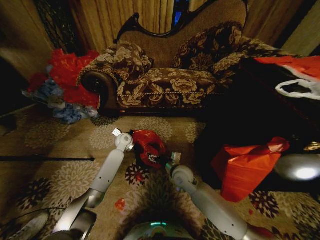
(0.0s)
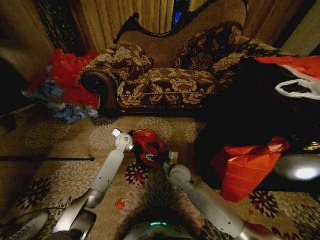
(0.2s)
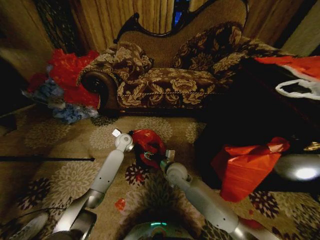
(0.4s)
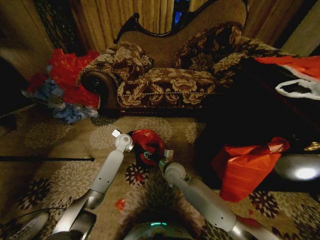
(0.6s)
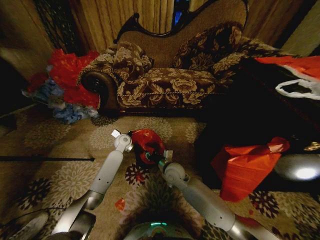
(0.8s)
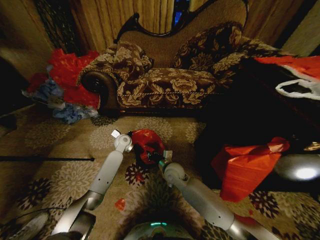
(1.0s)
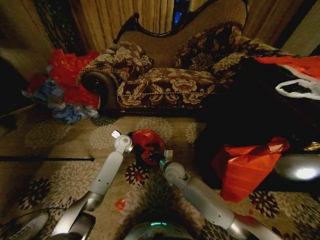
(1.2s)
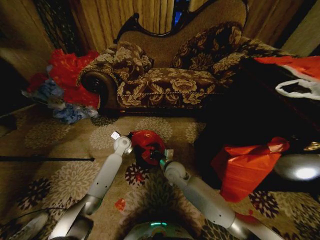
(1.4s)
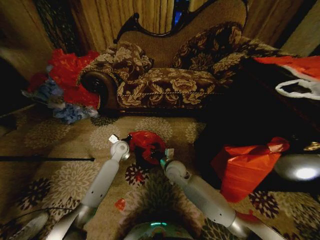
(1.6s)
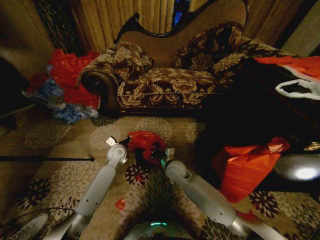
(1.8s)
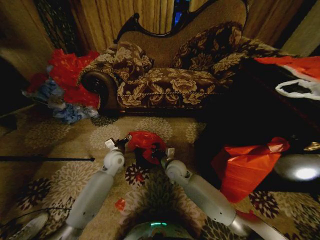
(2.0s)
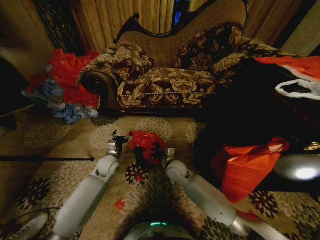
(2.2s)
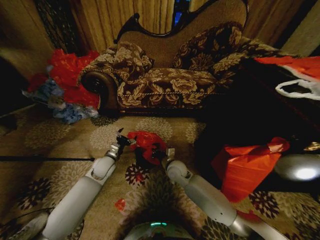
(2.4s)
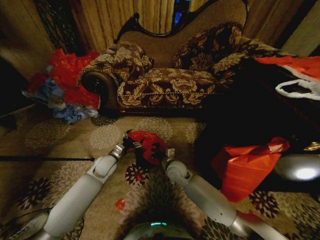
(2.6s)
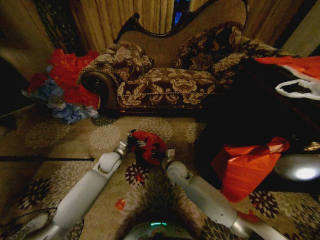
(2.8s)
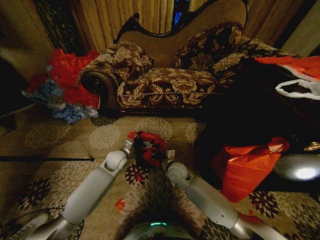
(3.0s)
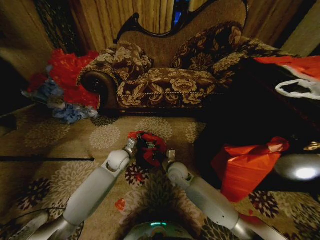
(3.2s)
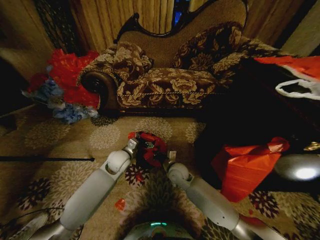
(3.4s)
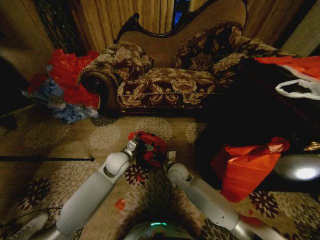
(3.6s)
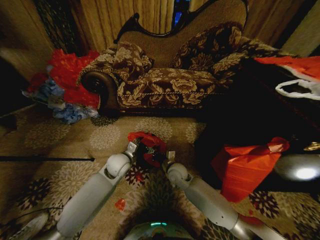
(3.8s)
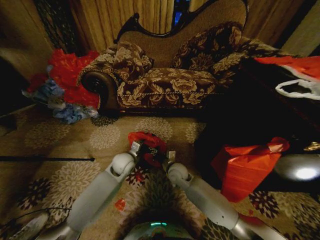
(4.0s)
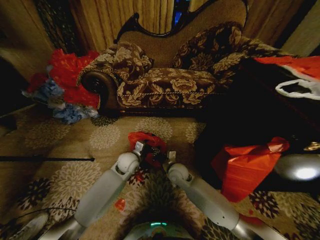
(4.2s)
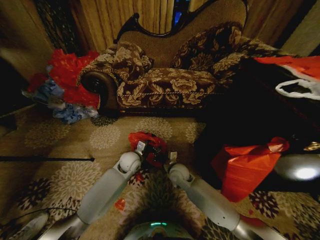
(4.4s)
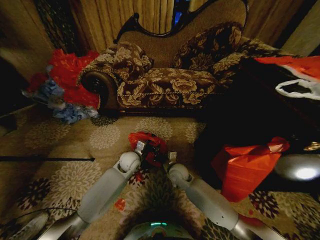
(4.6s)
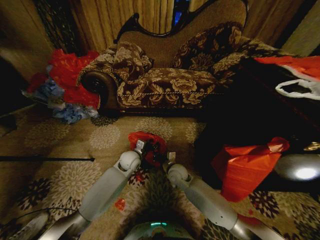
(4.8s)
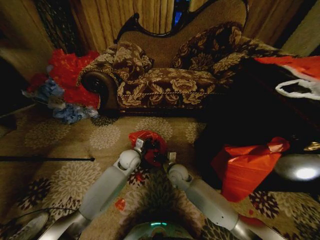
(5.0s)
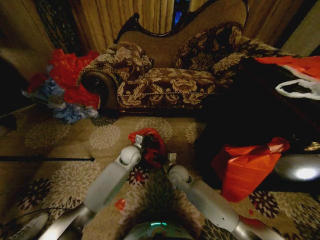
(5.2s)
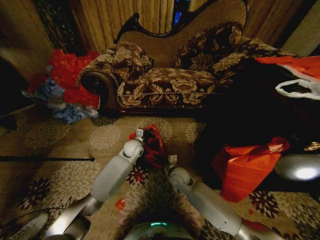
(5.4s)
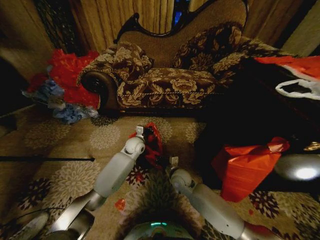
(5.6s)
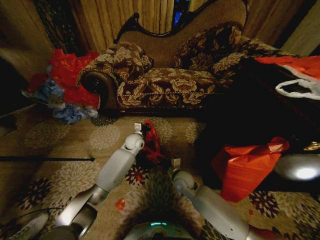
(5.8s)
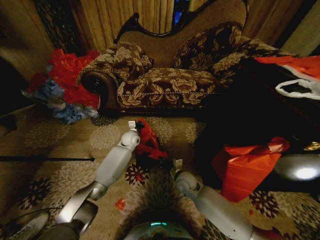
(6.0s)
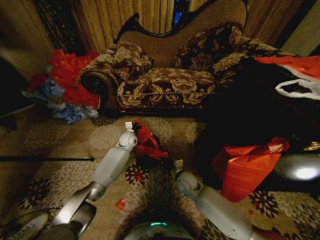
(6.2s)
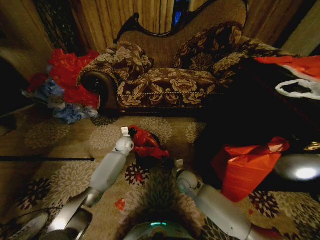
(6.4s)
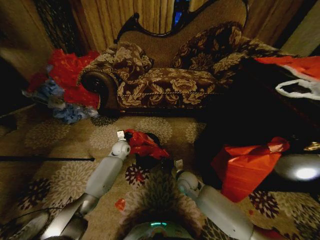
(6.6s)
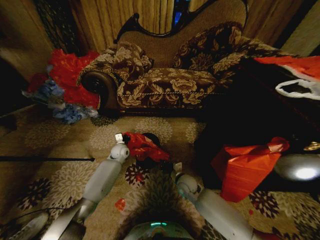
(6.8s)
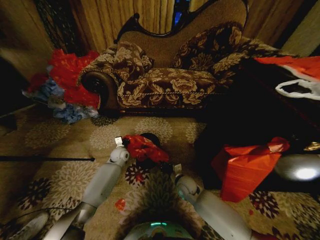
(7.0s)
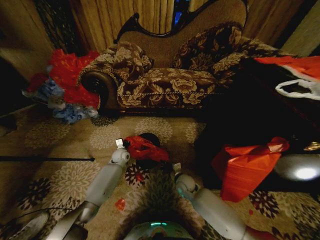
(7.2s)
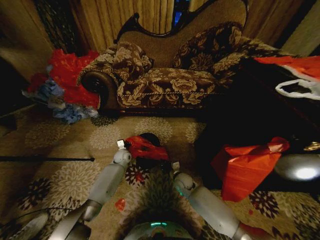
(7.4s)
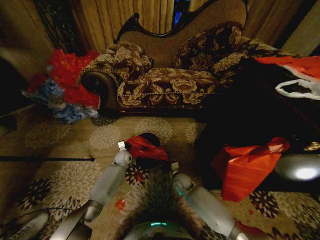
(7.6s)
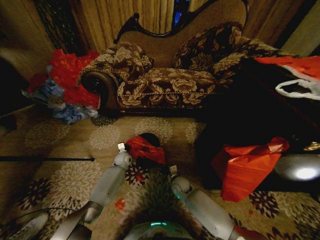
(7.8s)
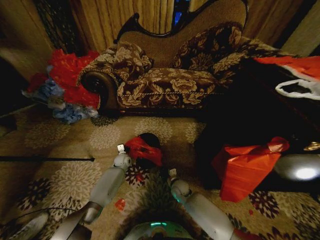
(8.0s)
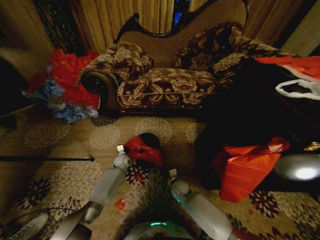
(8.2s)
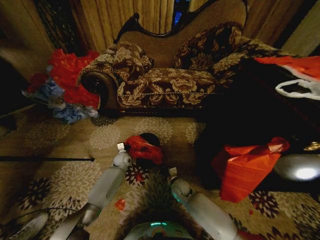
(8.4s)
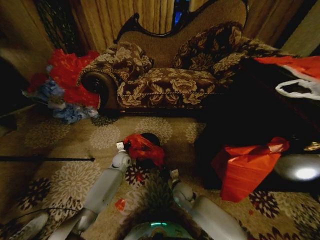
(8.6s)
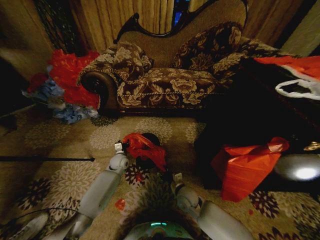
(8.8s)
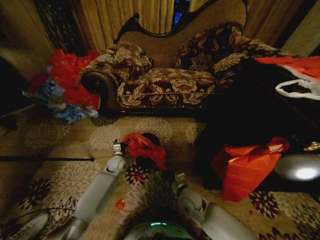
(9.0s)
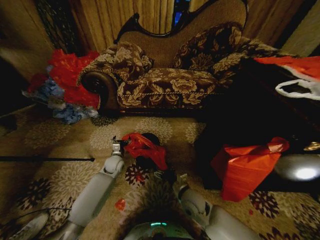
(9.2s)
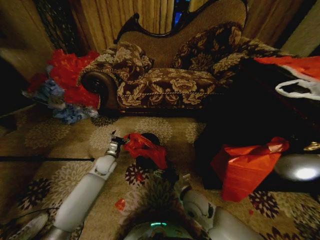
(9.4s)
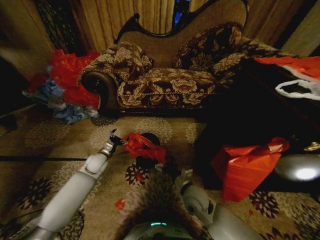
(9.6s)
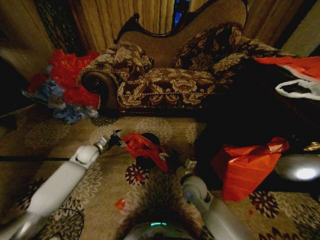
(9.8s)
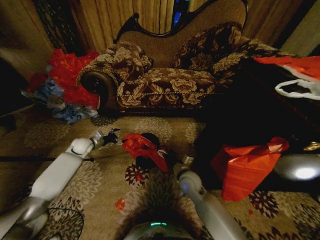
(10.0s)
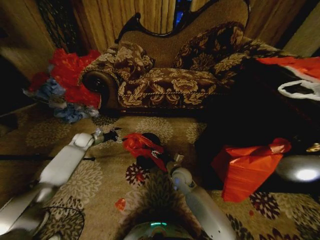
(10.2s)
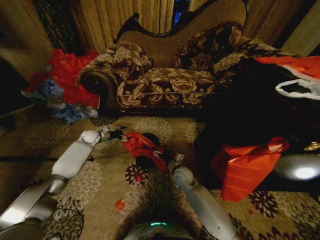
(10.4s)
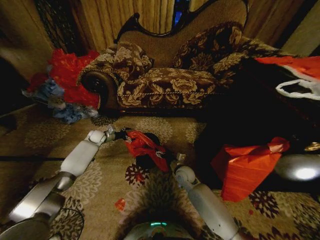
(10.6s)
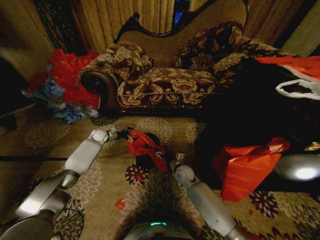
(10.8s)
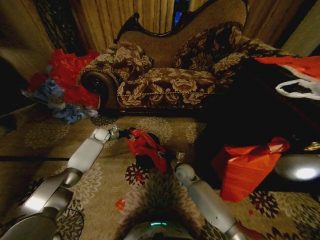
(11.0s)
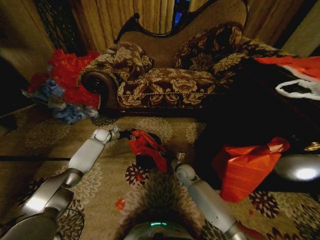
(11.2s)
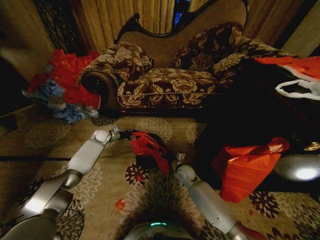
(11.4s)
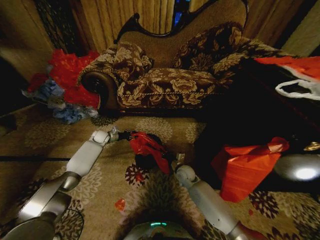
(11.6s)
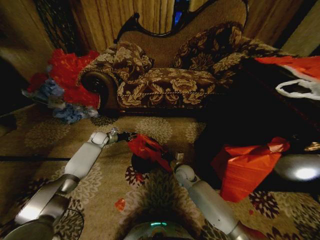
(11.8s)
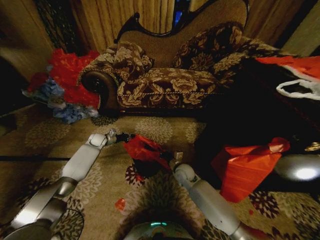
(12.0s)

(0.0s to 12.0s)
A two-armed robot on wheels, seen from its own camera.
Task of the whole recording: Place a garbage bag over the trash bin.
0.0s - 1.6s: The right gripper closes up. Meanwhile the left gripper shifts by some 5 cm, and opens.
1.6s - 3.0s: The left gripper shifts some 5 cm backward, and opens.
3.0s - 4.4s: The left gripper is displaced to the right by approximately 5 cm.
4.4s - 6.0s: The left gripper heads forward, covering approximately 15 cm, and closes its fingers.
6.0s - 7.6s: The right gripper moves downward, roughly 10 cm, while the left gripper heads downward and to the left, covering some 15 cm.
7.6s - 9.0s: The right gripper goes approximately 10 cm backward and upward, and opens its fingers, while the left gripper moves backward, roughly 5 cm, and opens up.
9.0s - 10.4s: The left gripper travels to the left, forward and upward by roughly 25 cm. The right gripper moves forward, some 10 cm.
10.4s - 12.0s: The right gripper closes up; the left gripper closes.

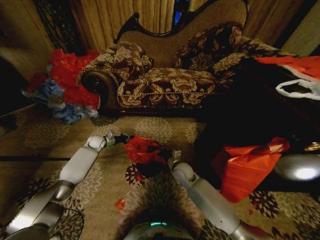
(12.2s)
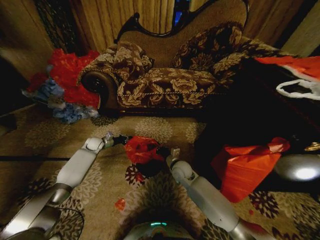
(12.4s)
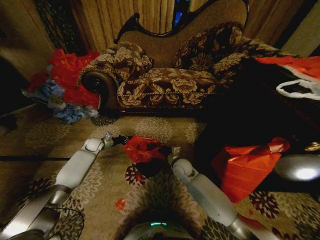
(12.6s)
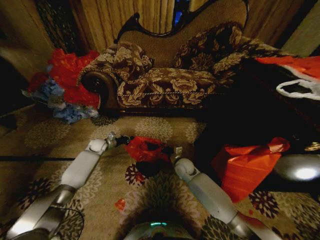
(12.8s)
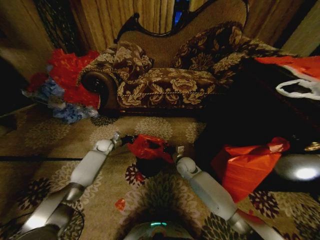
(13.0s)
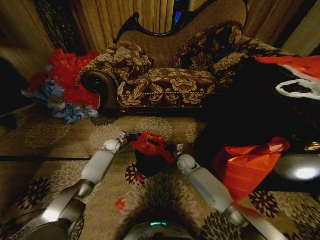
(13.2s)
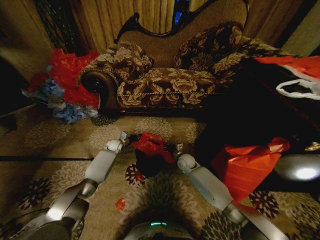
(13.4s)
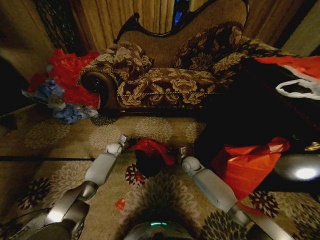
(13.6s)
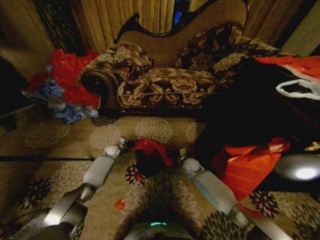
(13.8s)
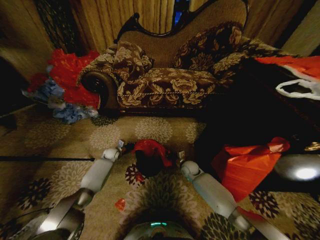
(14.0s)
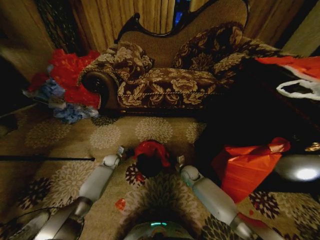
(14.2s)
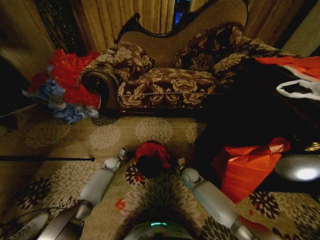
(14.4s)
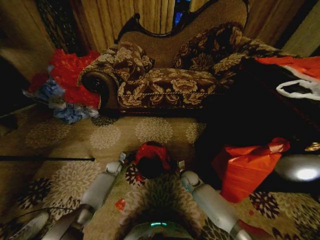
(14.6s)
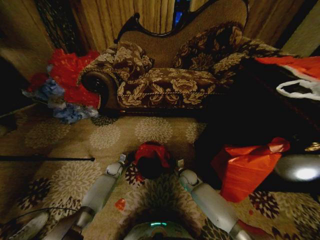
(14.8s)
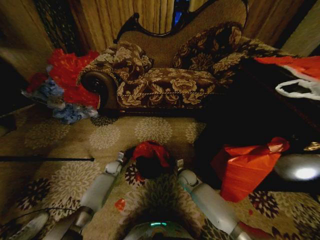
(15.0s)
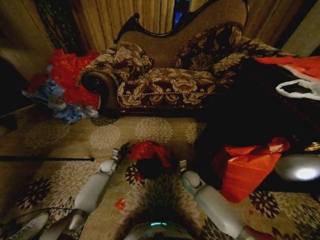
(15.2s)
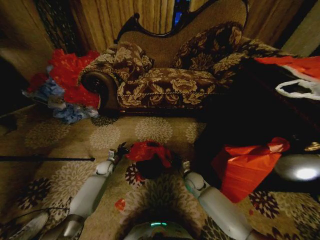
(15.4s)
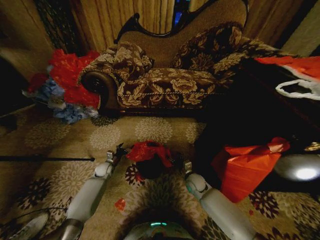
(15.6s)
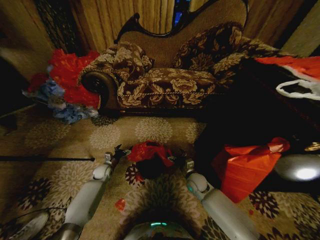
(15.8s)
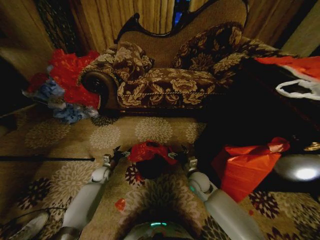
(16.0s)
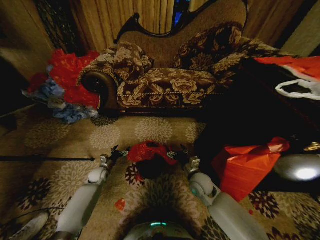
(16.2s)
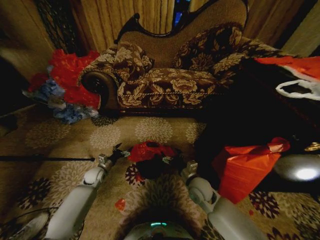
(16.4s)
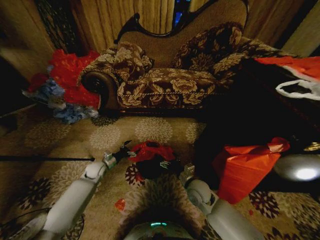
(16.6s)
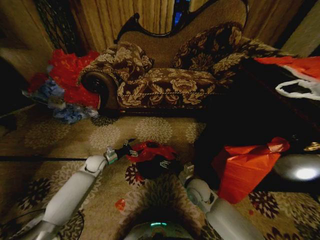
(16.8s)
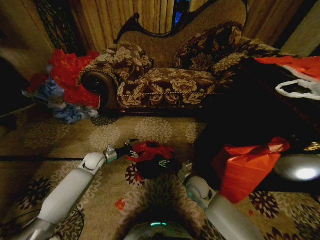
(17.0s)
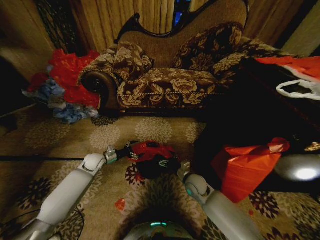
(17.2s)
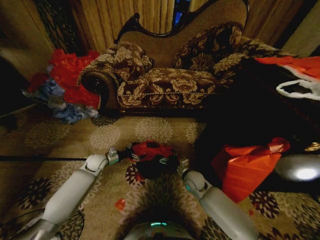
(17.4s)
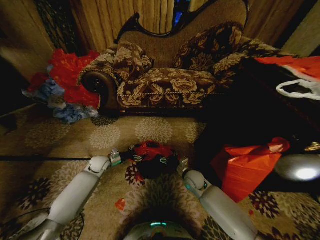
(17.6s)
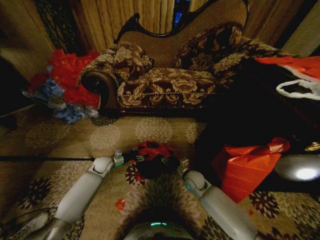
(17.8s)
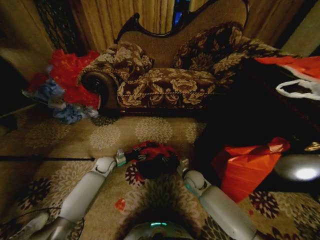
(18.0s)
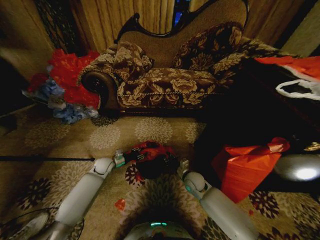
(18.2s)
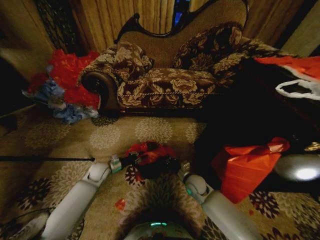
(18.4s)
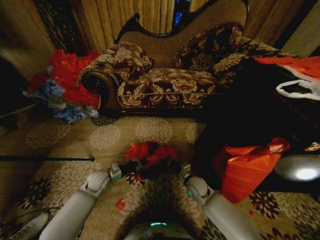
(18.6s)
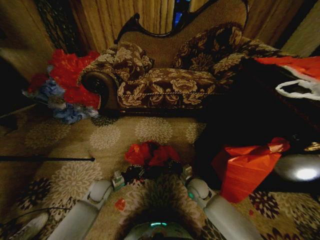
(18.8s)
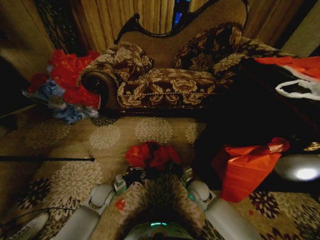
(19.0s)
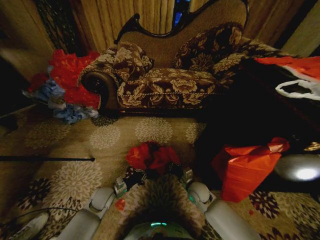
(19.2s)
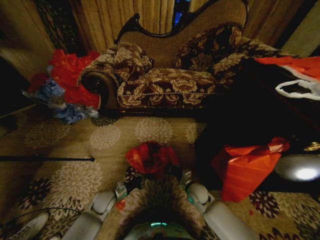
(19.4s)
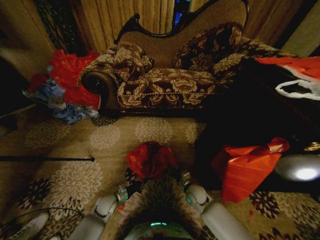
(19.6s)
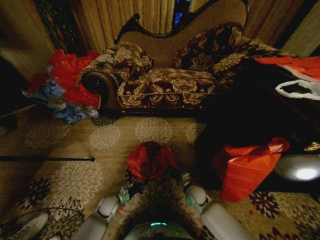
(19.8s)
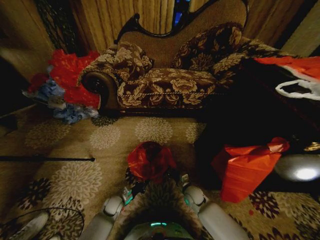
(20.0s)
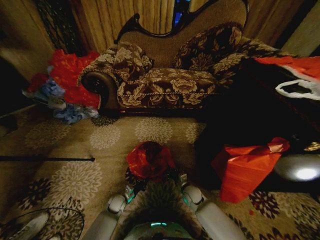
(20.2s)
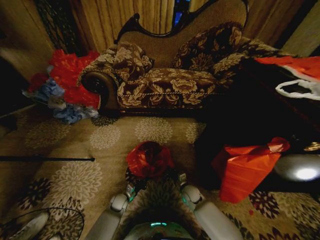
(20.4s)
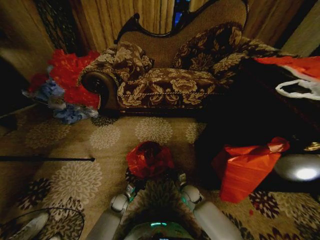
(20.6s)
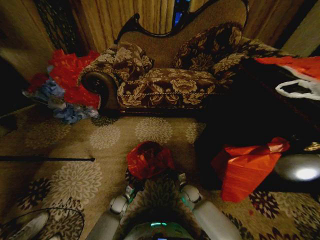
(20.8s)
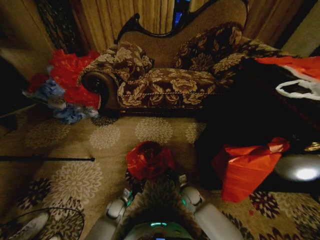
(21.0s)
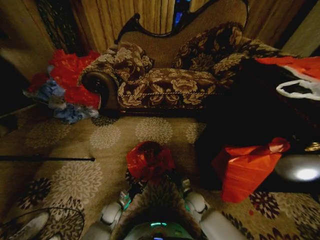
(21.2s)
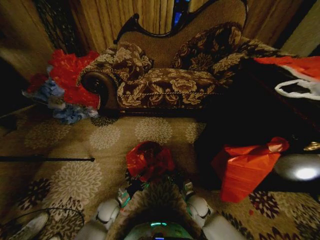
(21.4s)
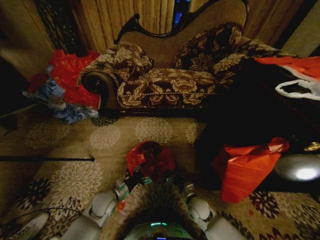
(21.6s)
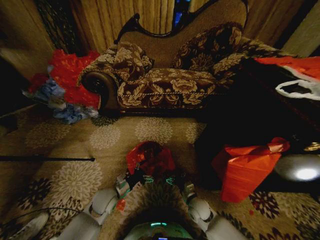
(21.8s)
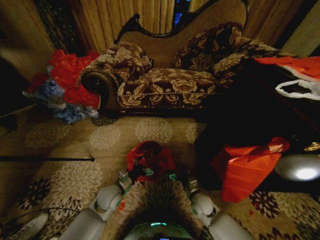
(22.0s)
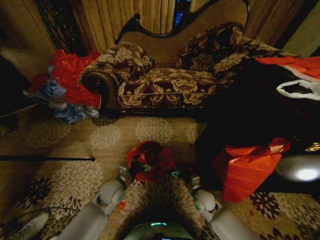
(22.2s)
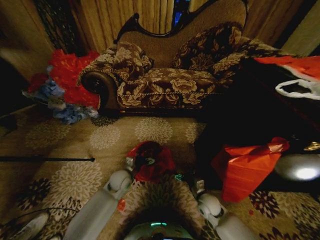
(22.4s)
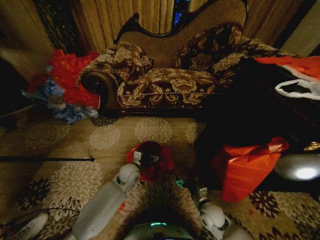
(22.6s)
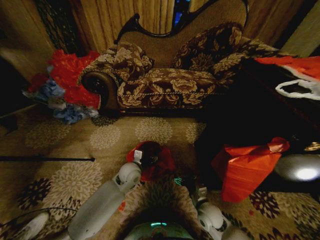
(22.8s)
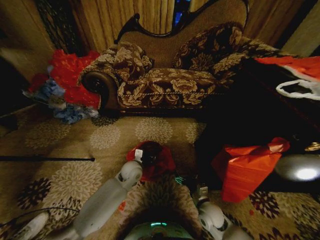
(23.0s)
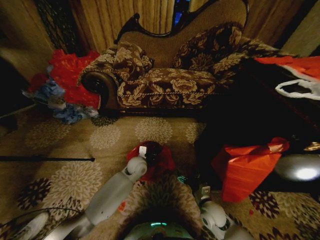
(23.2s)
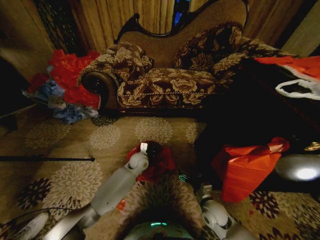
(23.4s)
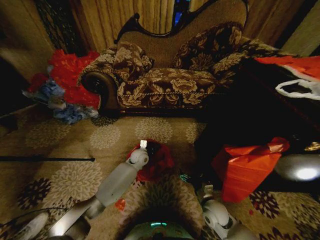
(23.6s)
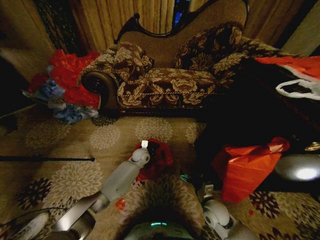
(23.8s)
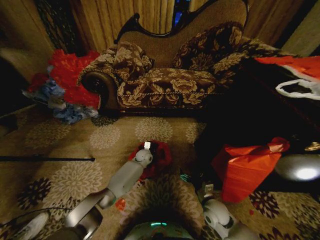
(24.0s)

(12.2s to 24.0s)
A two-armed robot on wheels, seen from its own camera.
Task of the whole recording: Place a garbage bag over the trash bin.
12.2s - 13.6s: The right gripper shifts some 10 cm forward, to the right and downward. The left gripper heads to the right and downward, covering roughly 10 cm.
13.6s - 15.2s: The right gripper heads backward, covering roughly 10 cm, and opens its fingers. Meanwhile the left gripper goes about 10 cm backward and downward, and opens its fingers.
15.2s - 16.6s: The left gripper is displaced upward and backward by some 10 cm, and opens its fingers. Meanwhile the right gripper moves backward and upward, about 10 cm, and opens up.
16.6s - 18.2s: The right gripper heads forward, covering roughly 5 cm, and closes. The left gripper closes its fingers.
18.2s - 19.6s: The left gripper goes some 20 cm backward and downward, and closes up, while the right gripper shifts about 5 cm downward.
19.6s - 21.0s: The left gripper is displaced downward by about 10 cm.
21.0s - 22.6s: The left gripper shifts approximately 25 cm upward, forward and to the right, and opens up. The right gripper travels backward and to the right by some 10 cm, and opens.
22.6s - 24.0s: The left gripper travels forward and downward by some 15 cm, and closes up.
